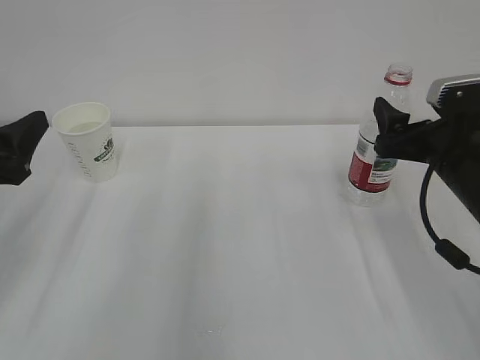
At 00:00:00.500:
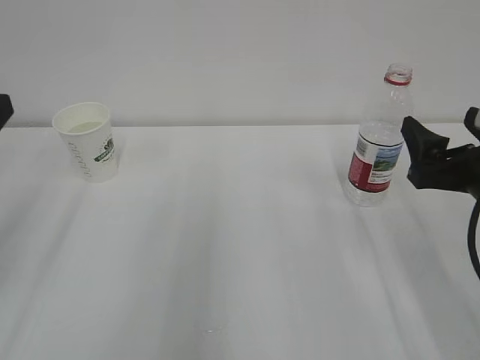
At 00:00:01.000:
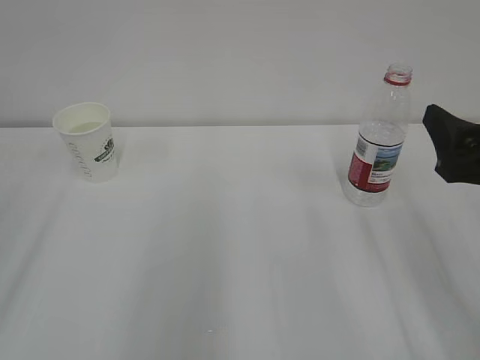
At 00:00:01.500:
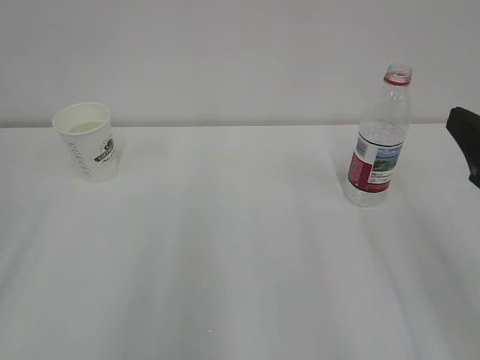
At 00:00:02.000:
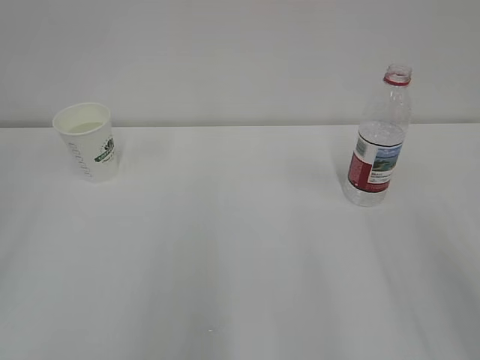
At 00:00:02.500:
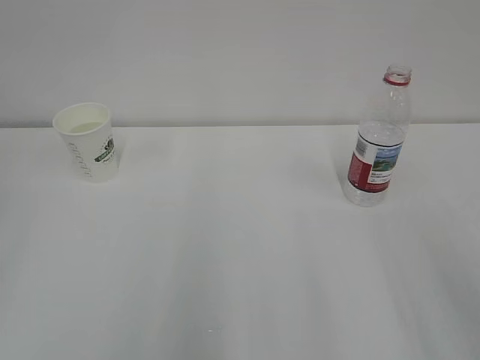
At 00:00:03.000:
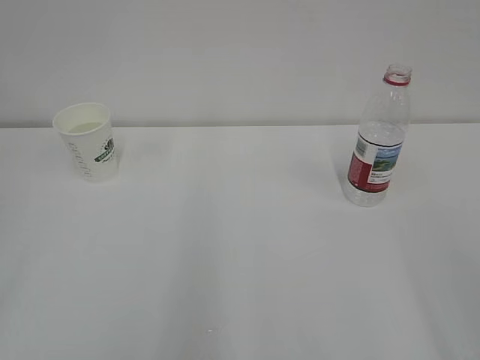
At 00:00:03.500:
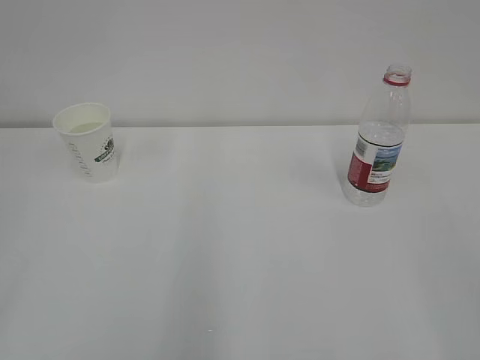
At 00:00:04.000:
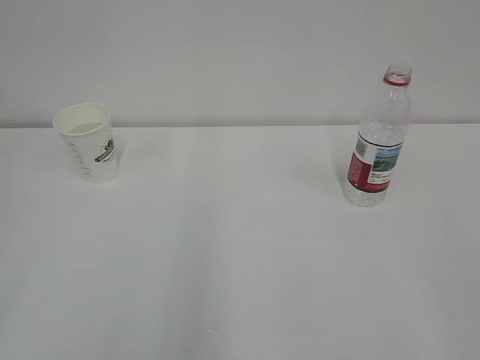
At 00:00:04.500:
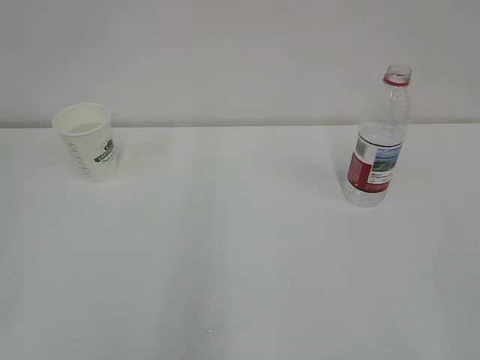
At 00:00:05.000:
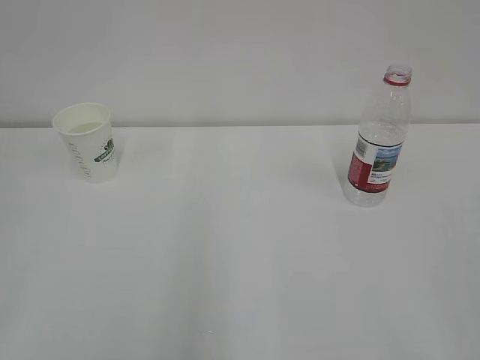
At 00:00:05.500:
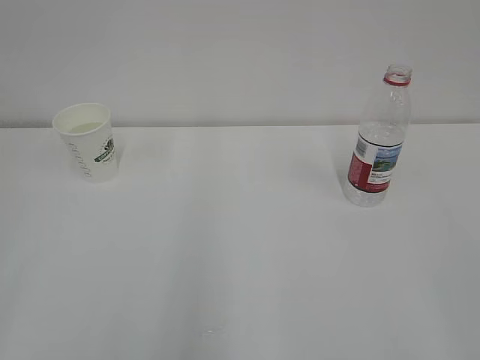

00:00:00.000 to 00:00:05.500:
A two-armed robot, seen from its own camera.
00:00:00.000 to 00:00:02.000: The two grippers go about 20 cm backward and upward. The right gripper closes up.
